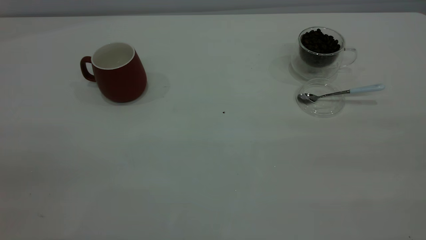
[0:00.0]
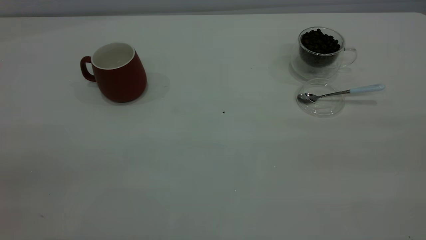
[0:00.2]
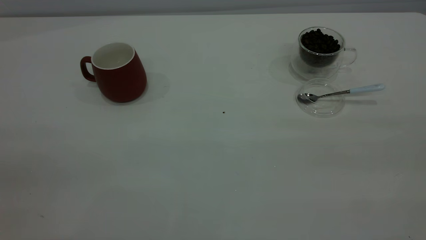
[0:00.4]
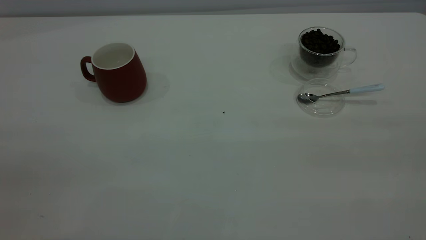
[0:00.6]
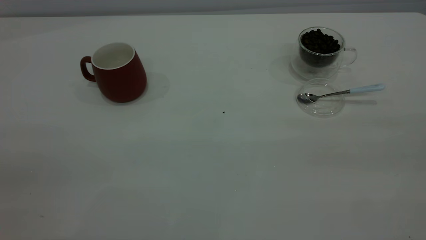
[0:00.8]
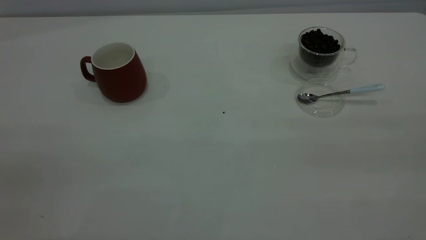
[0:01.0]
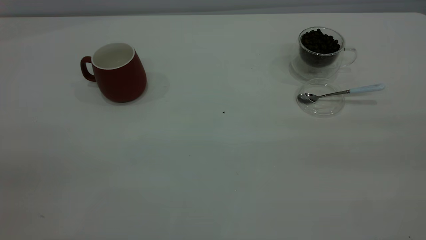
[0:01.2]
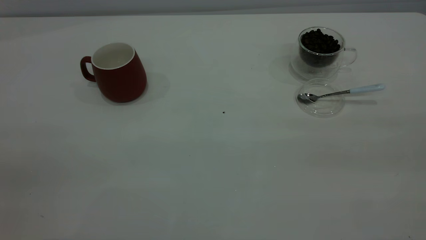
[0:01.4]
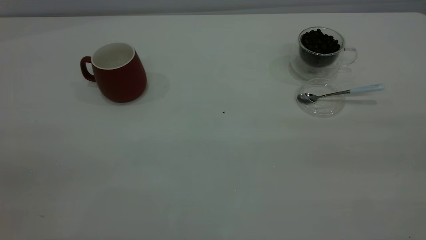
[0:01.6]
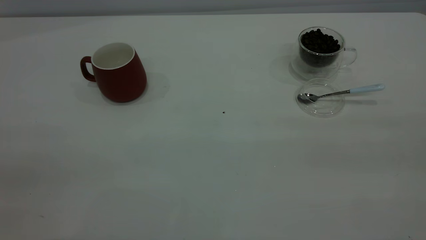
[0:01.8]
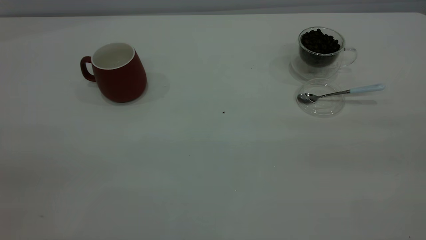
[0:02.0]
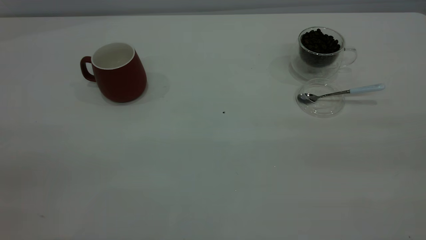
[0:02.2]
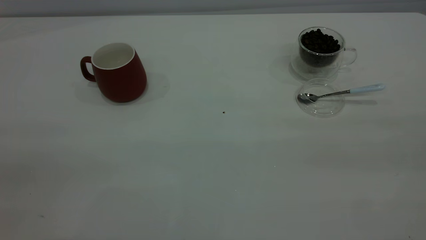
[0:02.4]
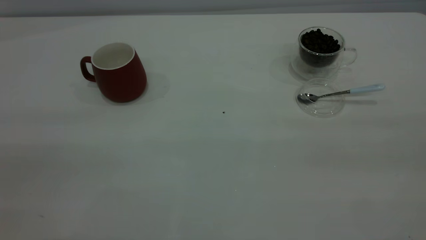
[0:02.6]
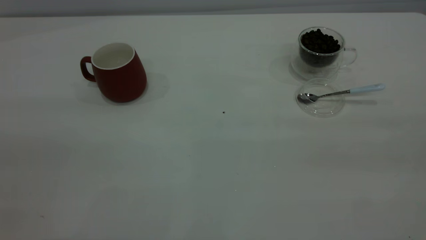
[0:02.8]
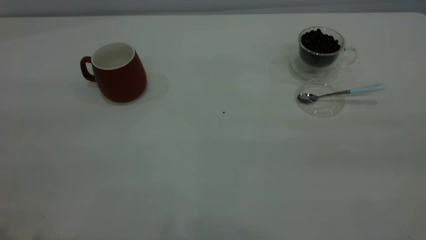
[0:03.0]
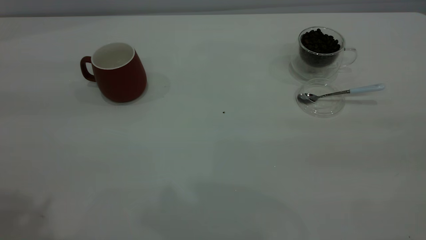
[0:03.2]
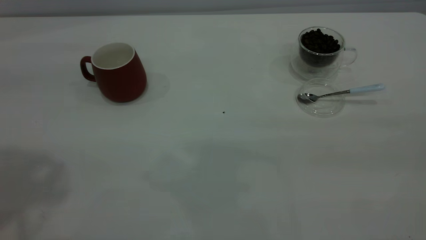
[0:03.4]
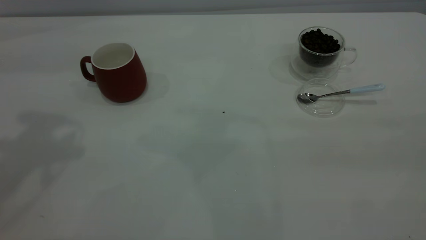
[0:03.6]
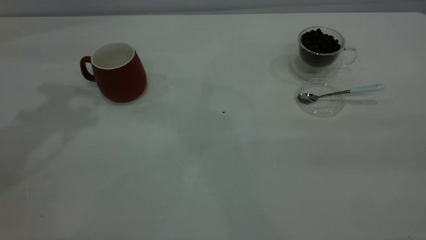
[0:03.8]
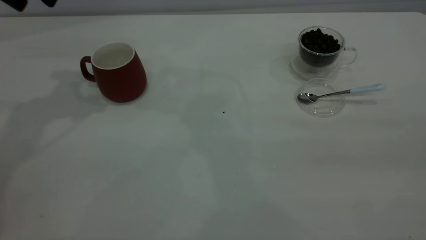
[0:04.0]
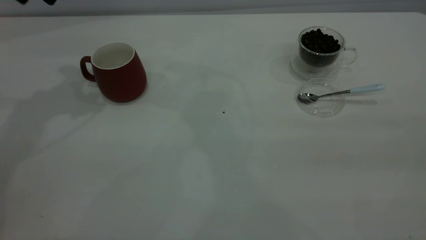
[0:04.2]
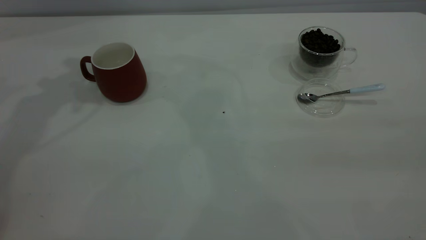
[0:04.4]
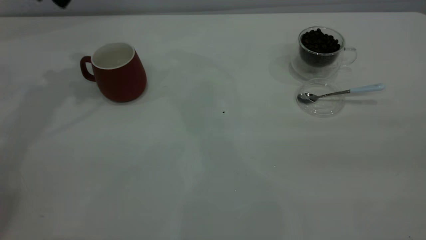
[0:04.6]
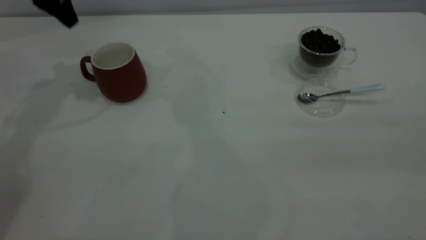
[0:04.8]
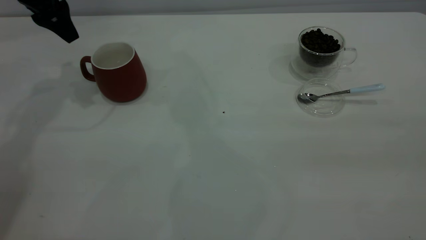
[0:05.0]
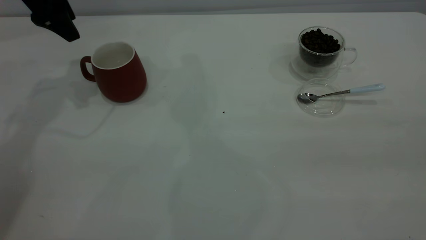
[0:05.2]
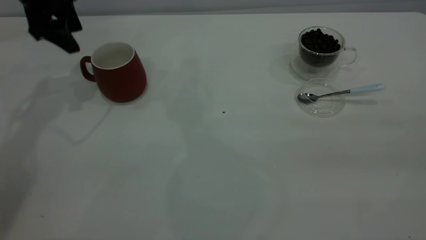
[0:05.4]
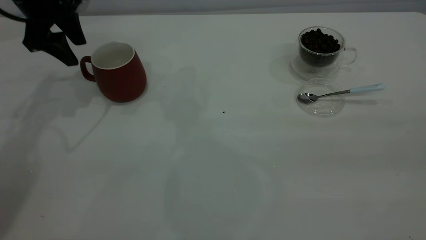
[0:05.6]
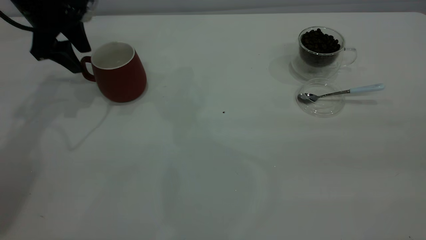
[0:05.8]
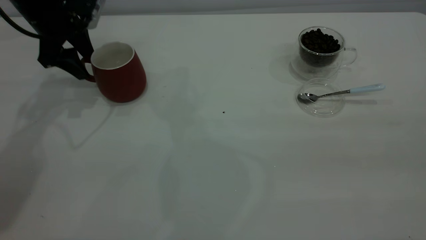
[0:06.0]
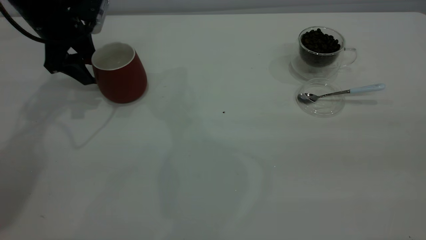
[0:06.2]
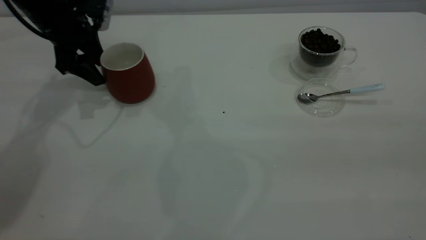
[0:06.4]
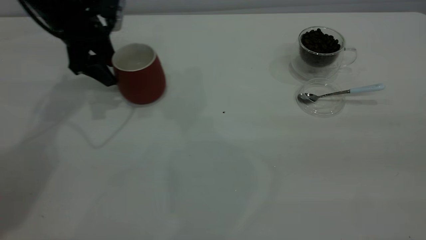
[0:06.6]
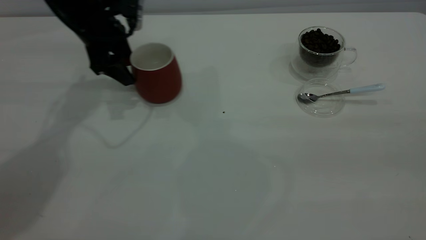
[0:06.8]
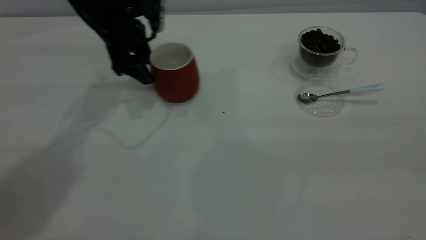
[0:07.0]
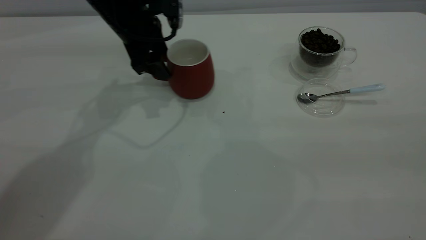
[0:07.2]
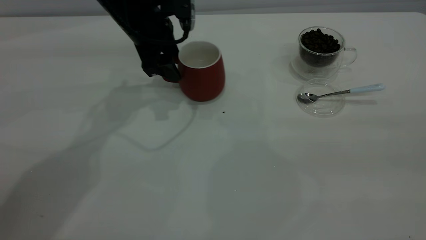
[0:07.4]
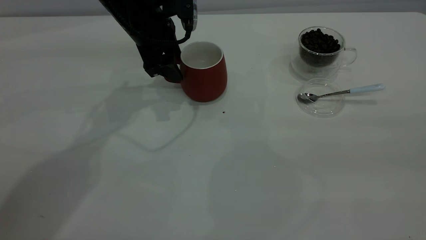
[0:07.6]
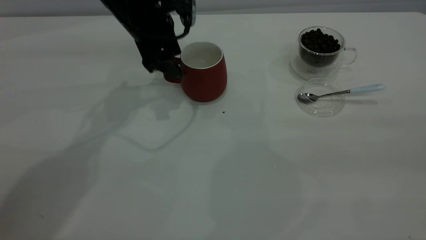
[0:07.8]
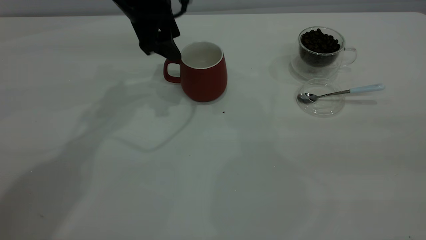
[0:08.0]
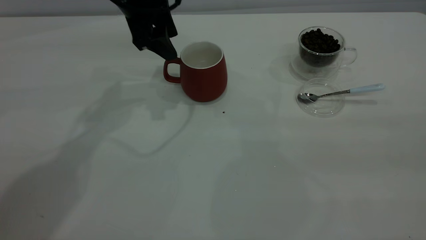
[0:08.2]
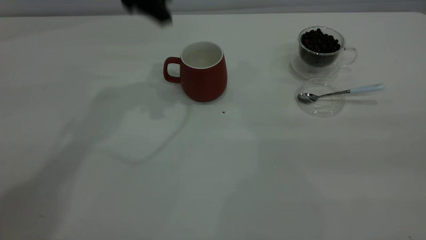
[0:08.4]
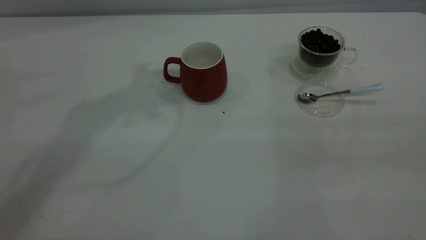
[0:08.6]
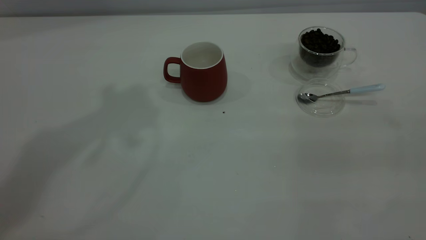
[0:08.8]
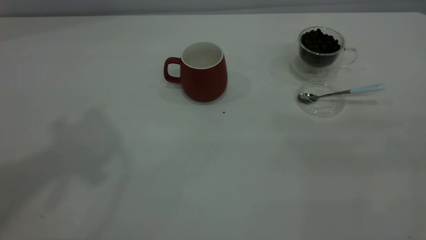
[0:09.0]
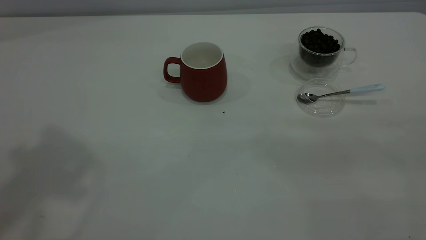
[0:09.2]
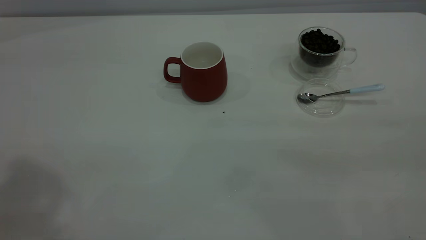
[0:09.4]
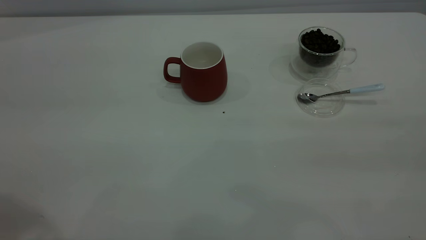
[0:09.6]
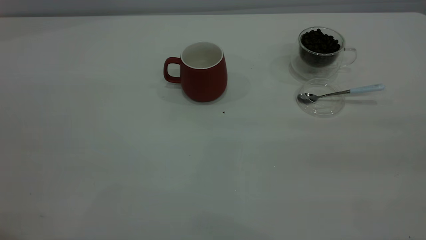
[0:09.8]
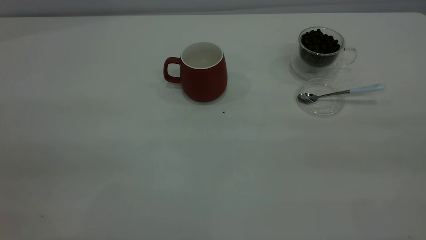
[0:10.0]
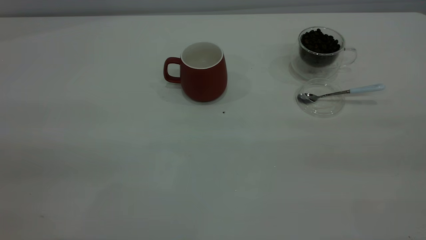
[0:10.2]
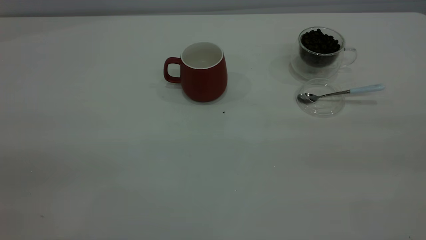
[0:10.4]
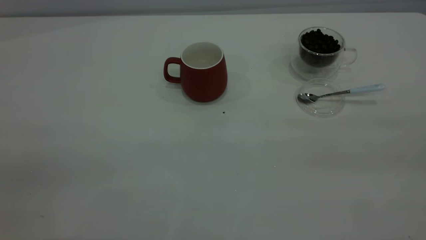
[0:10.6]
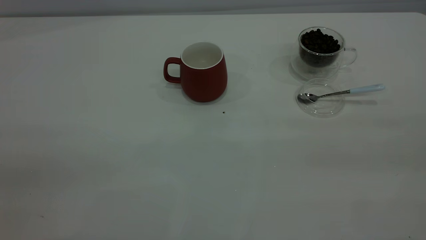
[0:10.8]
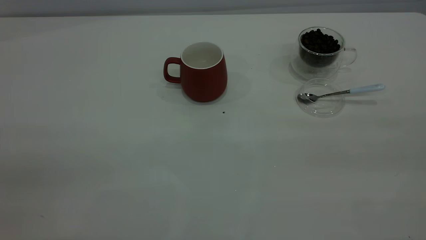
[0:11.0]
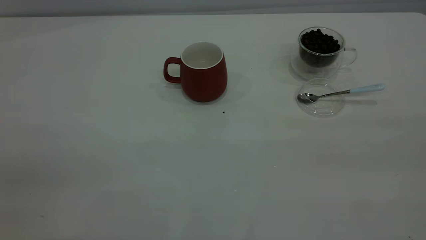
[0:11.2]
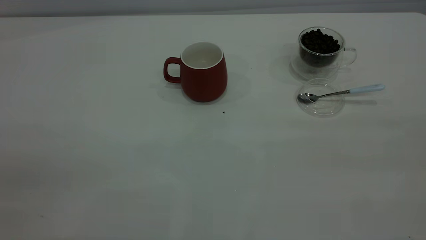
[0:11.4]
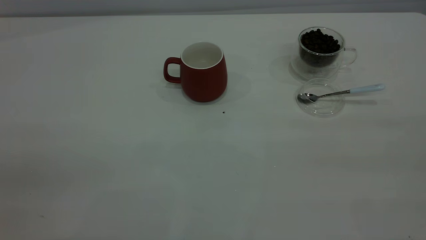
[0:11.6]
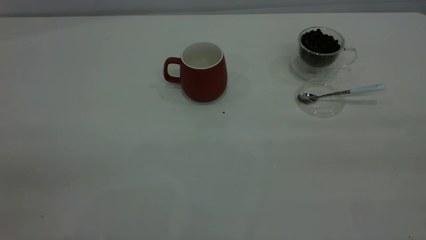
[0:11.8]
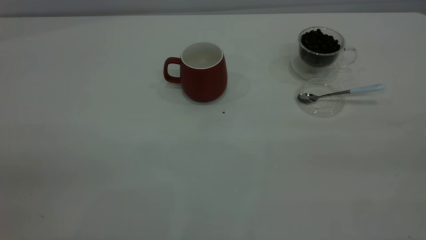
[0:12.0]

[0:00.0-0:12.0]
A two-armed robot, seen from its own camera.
Task of the whole recording: the left gripper place the red cup in the center of the table, the right gripper take the blue spoon from the cup lid and scoop out the coffee beans from the coffee cup and put them into the red cup, the right gripper put the spoon back into the cup lid.
Step, 0:00.0 to 0:08.2: Move the cup to the center of view.
0:00.0 to 0:01.6: Both grippers stay put.
0:04.4 to 0:06.0: The left gripper moves downward, about 15 cm.
0:06.0 to 0:07.6: The left gripper heads to the right, covering about 15 cm.
0:07.6 to 0:09.0: The left gripper is displaced upward and backward by about 40 cm.

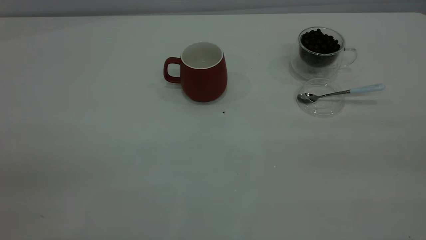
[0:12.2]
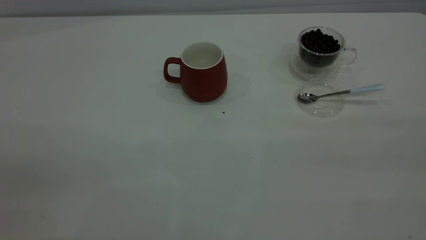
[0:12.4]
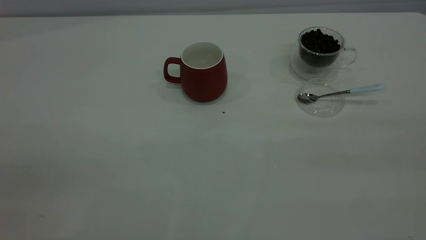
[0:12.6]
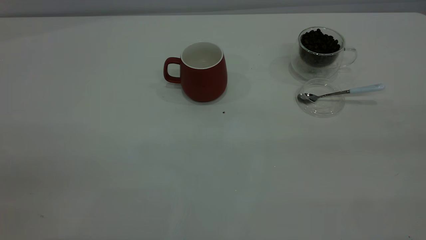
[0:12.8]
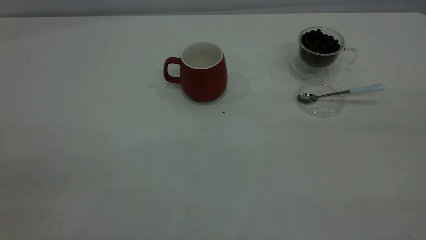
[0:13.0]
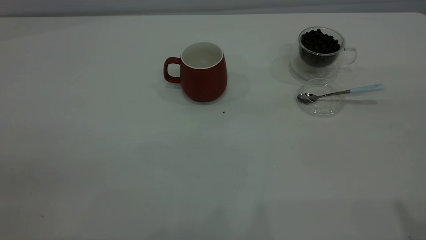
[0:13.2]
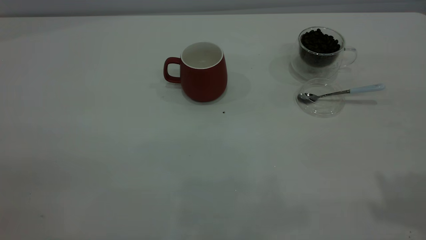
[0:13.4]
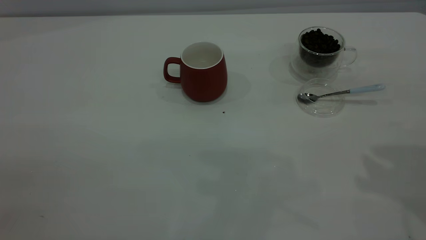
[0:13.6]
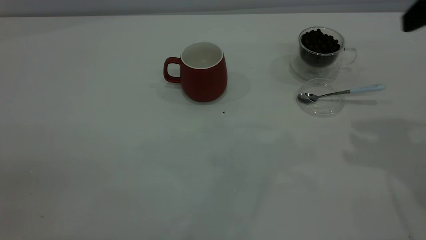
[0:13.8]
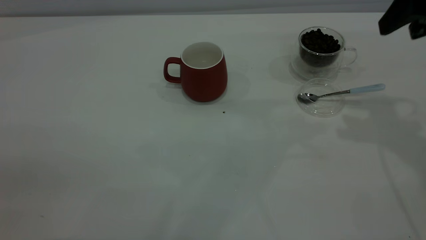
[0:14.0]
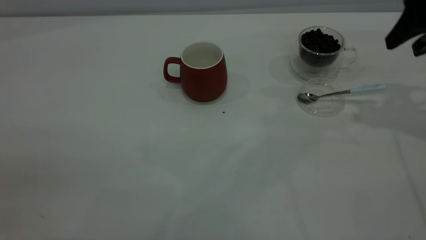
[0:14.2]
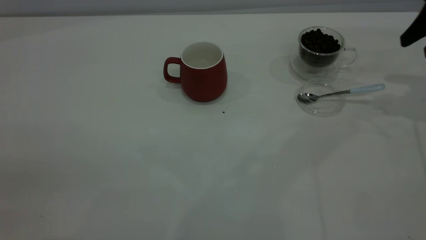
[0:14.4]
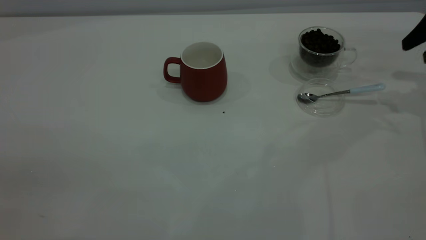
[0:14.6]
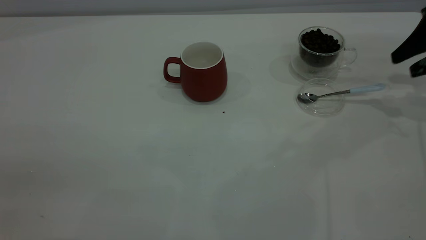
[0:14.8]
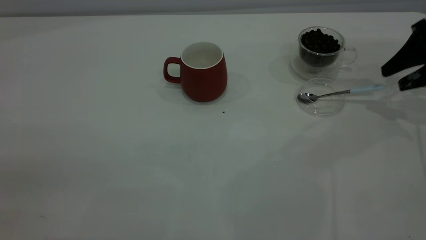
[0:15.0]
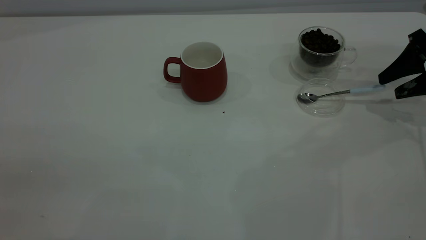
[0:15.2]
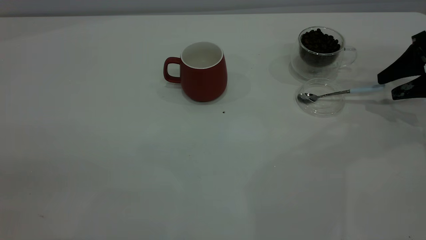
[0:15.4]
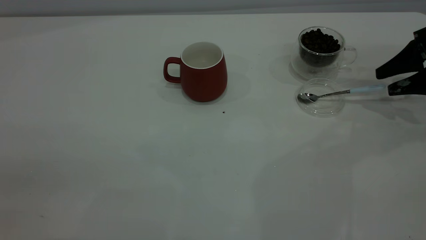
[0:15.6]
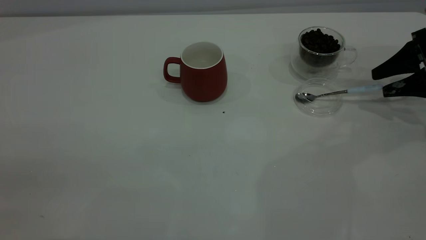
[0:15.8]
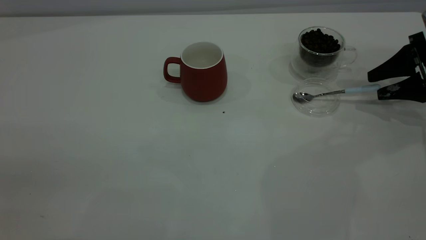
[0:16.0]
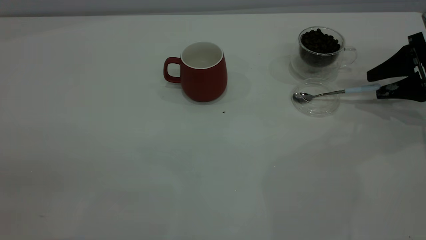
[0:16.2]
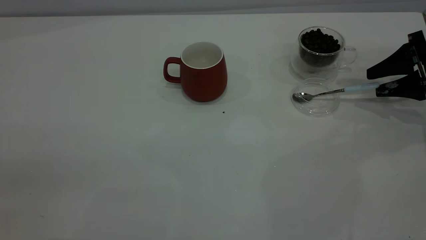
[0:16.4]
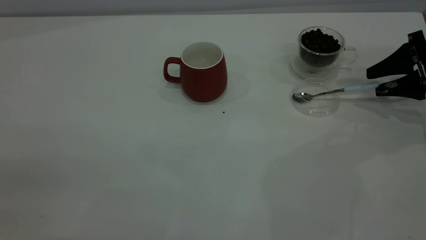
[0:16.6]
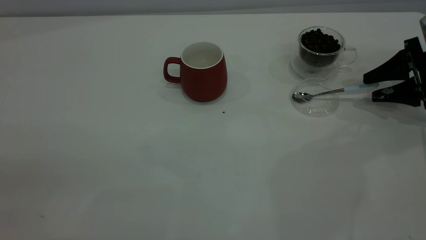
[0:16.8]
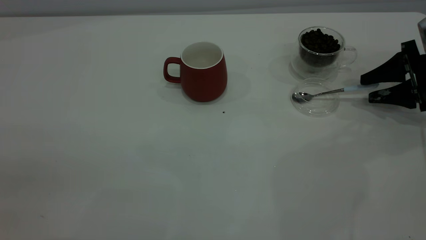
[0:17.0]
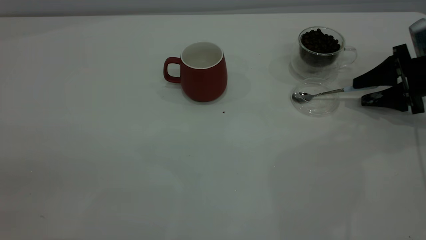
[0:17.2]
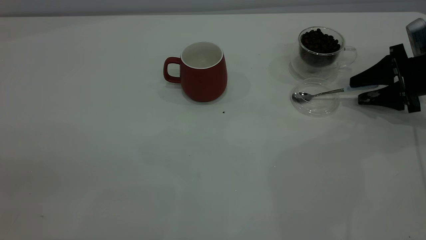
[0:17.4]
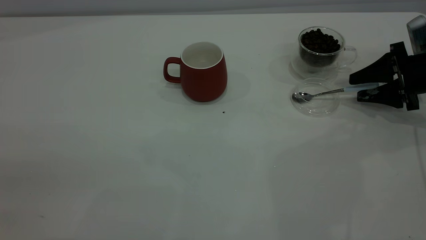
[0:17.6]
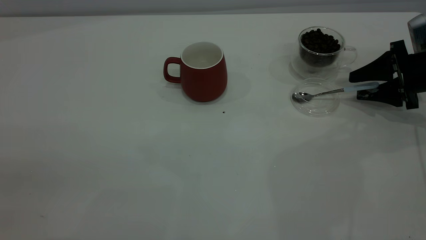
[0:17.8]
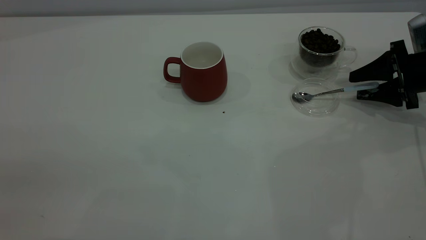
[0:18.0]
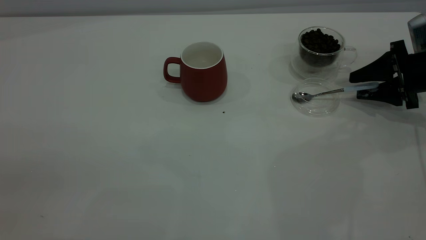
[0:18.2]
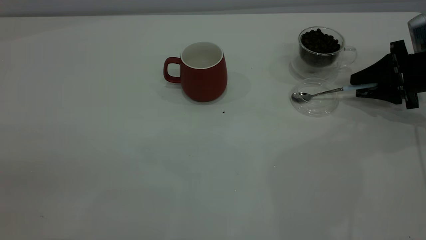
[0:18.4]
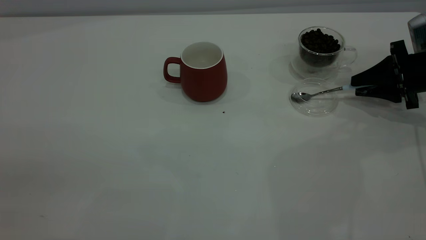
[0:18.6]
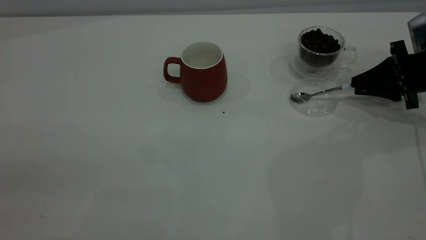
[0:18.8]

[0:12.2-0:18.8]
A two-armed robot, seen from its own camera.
Task of the whole recording: the left gripper place the red cup in the center of the table, the right gripper take the blue spoon from the cup lid and scoop out the coffee beans from the coffee cup and put them into the red cup, the right gripper put the spoon back into the cup lid.
0:13.8 to 0:15.4: The right gripper heads downward, to the right and forward, covering about 25 cm.
0:15.4 to 0:17.2: The right gripper moves about 5 cm.
0:17.2 to 0:18.8: The right gripper closes.
